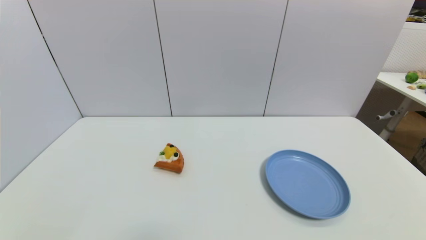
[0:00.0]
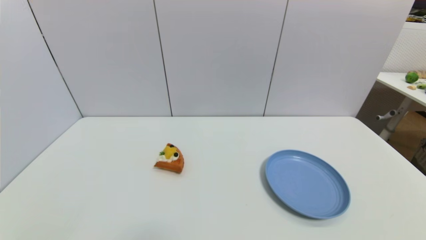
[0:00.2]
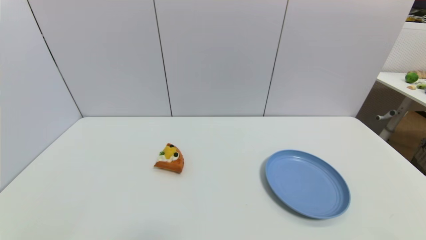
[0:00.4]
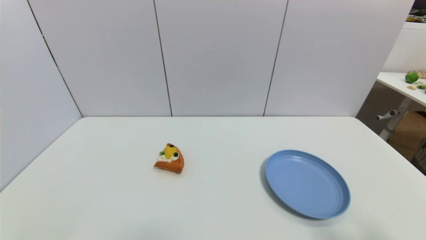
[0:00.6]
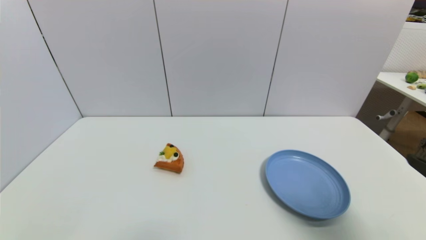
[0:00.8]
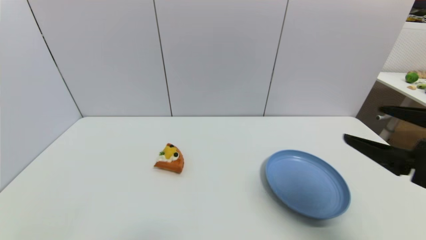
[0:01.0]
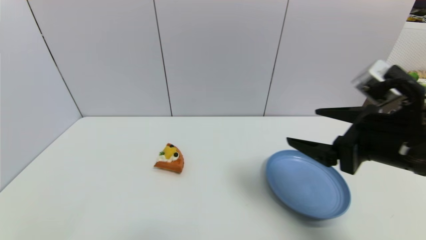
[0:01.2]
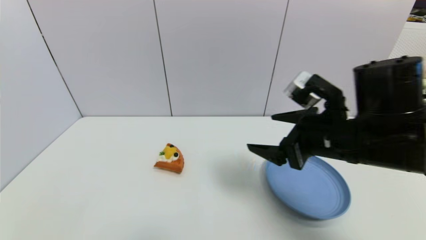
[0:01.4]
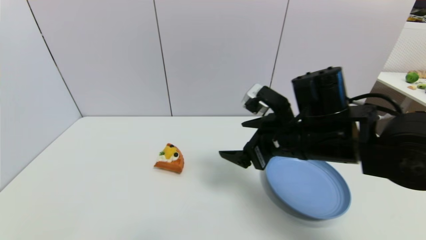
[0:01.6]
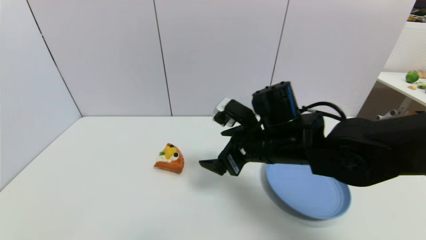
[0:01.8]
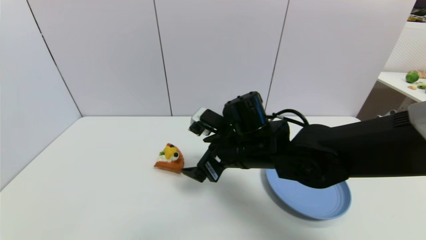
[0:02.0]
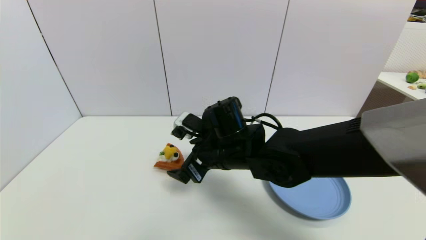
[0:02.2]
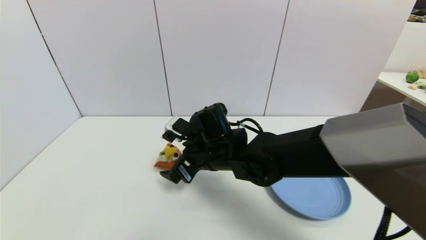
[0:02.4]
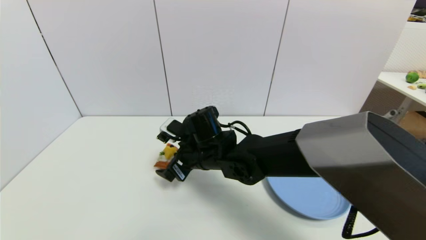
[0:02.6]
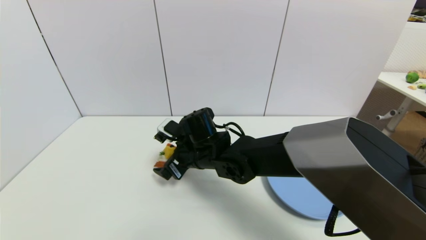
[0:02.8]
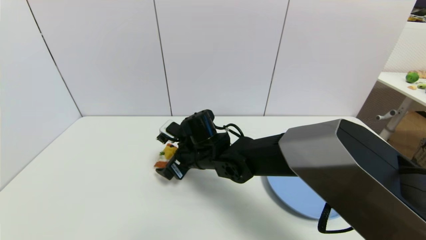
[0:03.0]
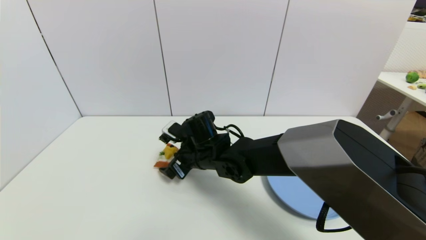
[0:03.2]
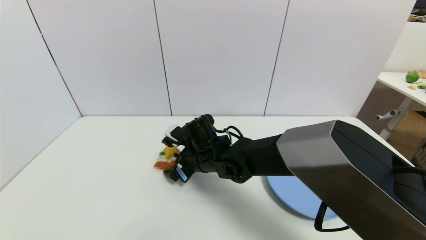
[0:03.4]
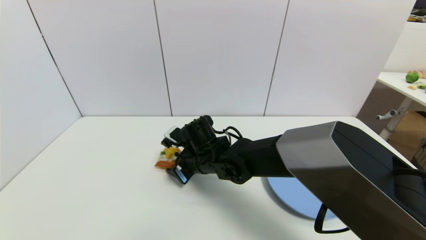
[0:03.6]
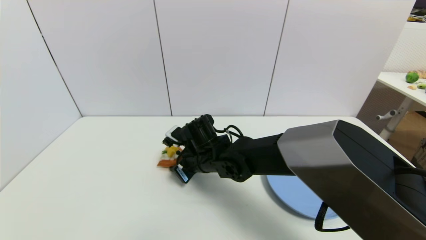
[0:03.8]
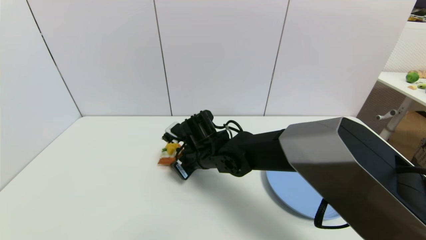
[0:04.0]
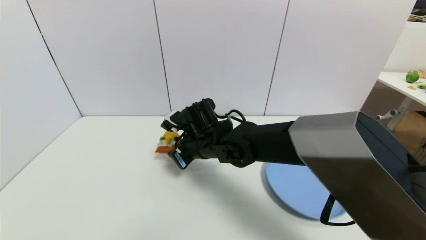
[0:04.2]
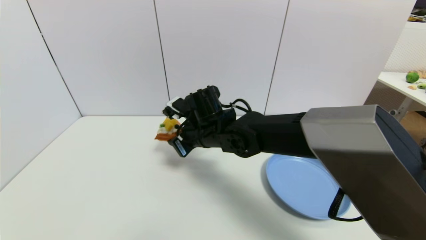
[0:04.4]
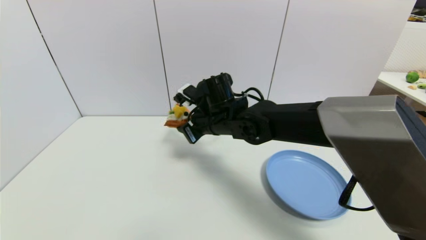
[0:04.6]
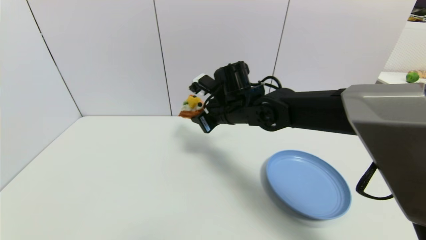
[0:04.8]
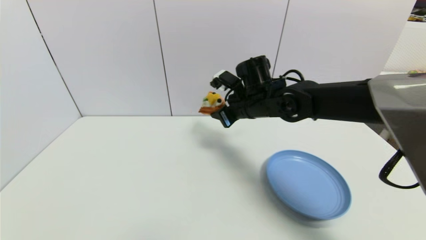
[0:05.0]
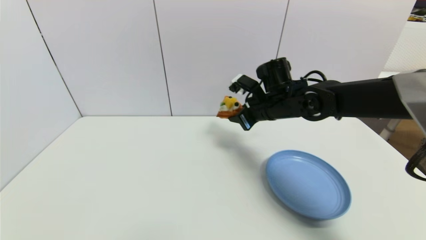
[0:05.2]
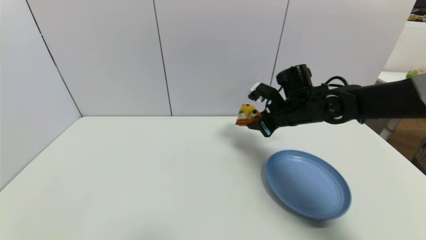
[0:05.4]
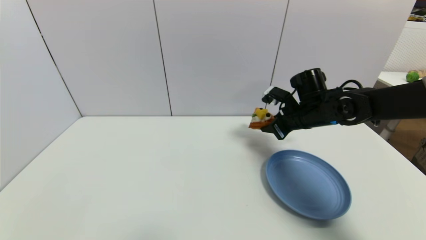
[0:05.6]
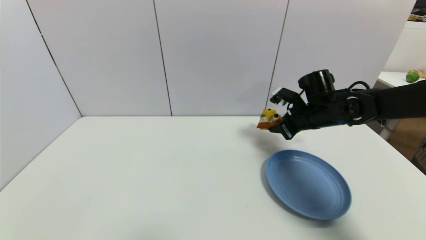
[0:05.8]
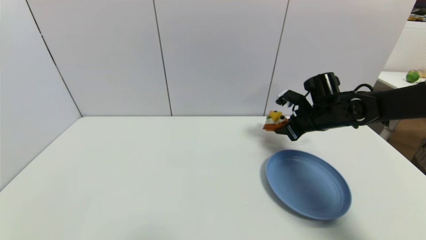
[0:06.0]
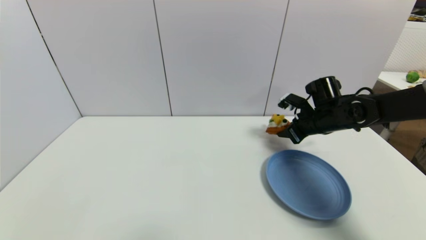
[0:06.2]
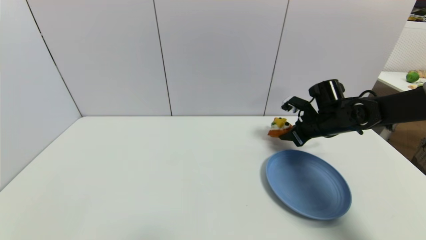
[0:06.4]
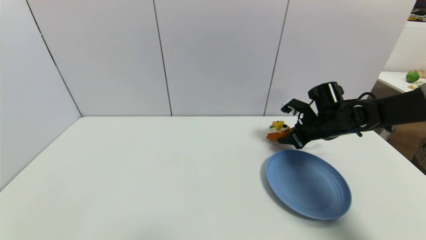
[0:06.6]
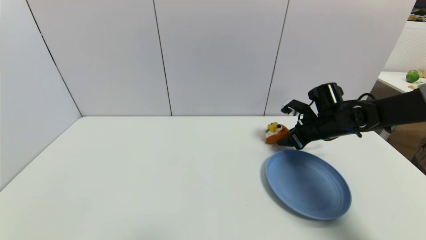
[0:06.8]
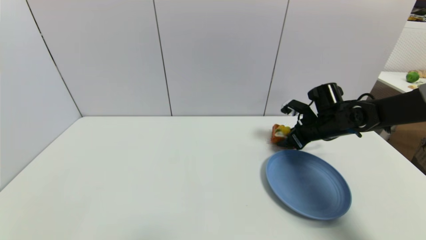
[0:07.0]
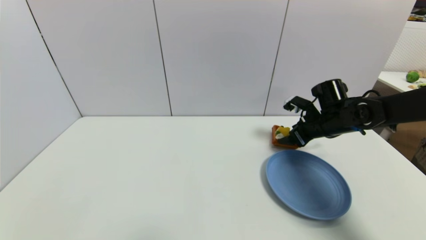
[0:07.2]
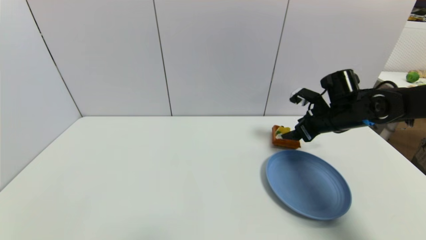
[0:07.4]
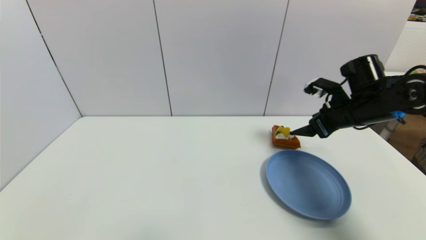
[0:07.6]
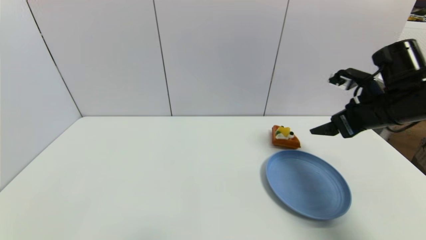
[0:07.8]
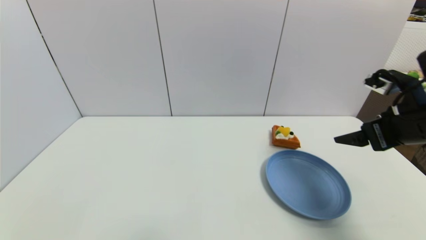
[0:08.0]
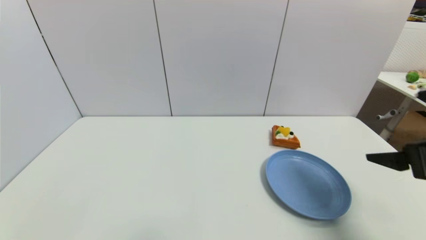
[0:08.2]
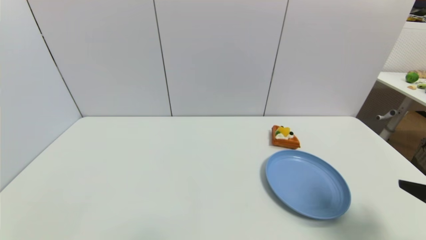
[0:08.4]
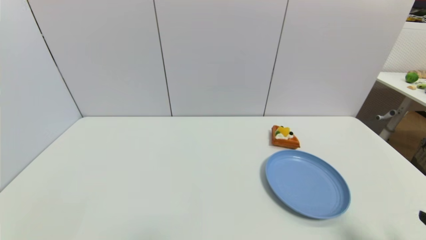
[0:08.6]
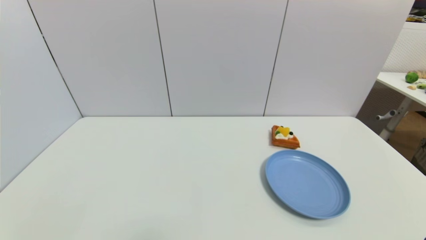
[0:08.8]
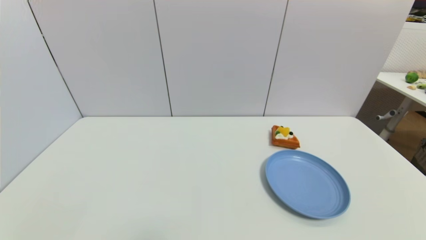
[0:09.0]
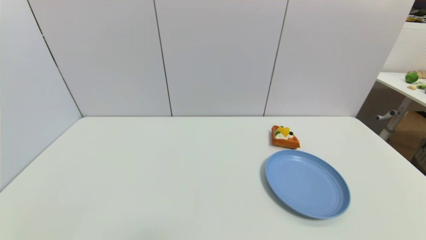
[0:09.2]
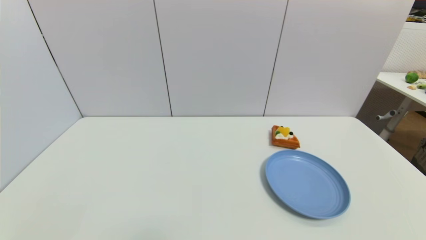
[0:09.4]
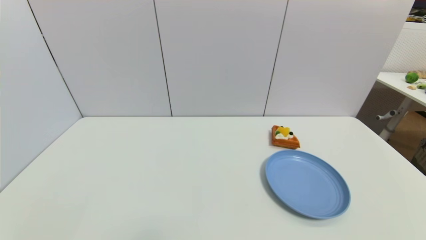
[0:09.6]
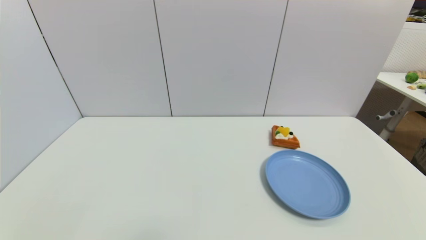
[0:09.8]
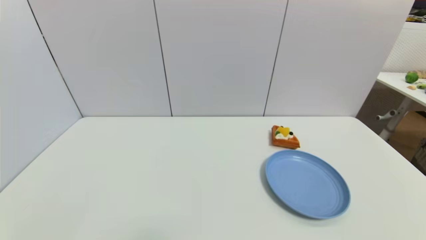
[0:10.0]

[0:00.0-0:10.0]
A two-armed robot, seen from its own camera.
Step, 0:00.0 to 0:03.8: Grasp the pizza with right gripper.
Step, 0:04.0 to 0:07.0: Place the pizza on the table with right gripper.
0:00.0 to 0:01.4: The right gripper heads forward, to the left and upward, covering about 35 cm.
0:01.4 to 0:02.8: The right gripper goes approximately 25 cm to the left, downward and forward.
0:02.8 to 0:04.2: The right gripper closes its fingers.
0:04.2 to 0:05.8: The right gripper goes approximately 25 cm to the right.
0:05.8 to 0:07.2: The right gripper opens up.
0:07.2 to 0:08.6: The right gripper shifts roughly 35 cm backward.

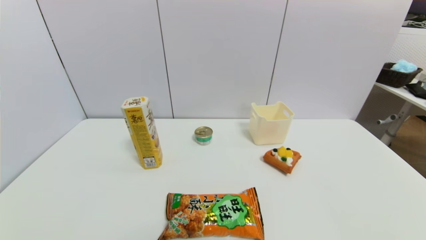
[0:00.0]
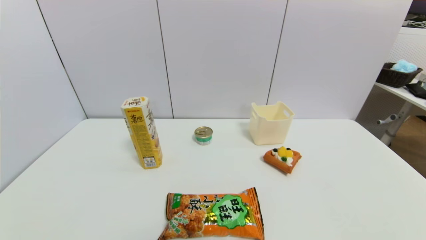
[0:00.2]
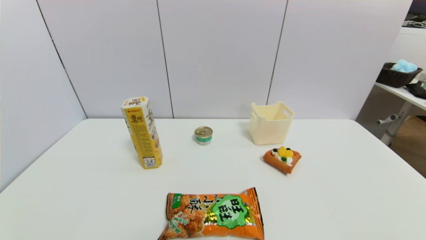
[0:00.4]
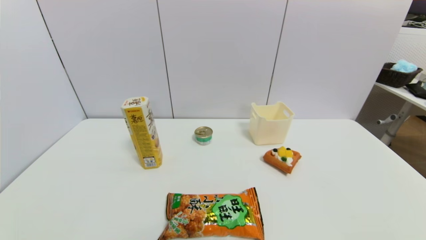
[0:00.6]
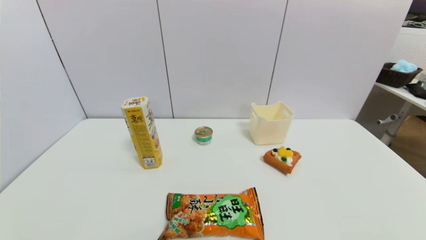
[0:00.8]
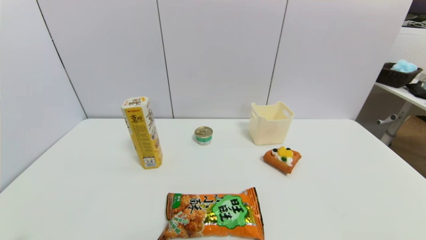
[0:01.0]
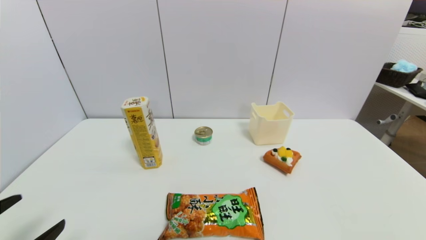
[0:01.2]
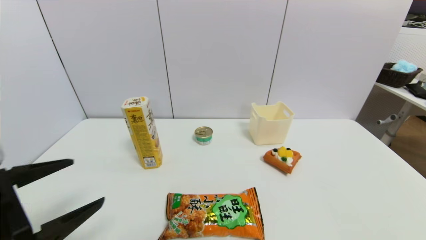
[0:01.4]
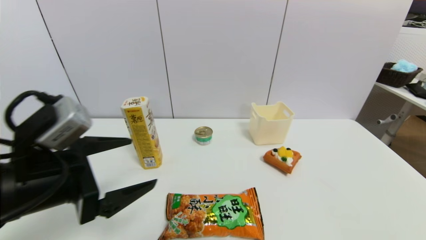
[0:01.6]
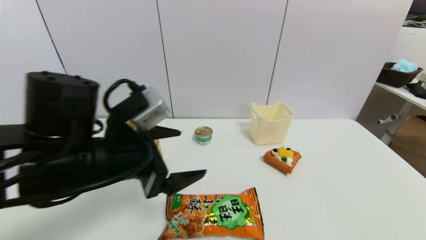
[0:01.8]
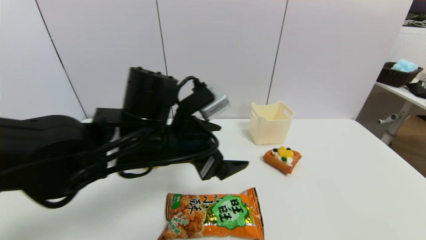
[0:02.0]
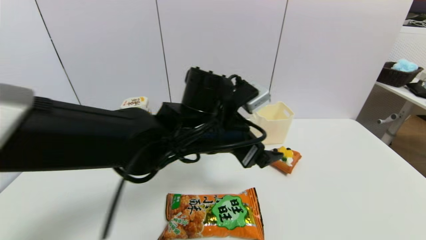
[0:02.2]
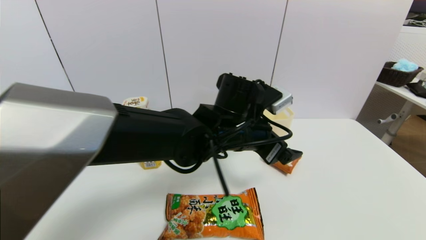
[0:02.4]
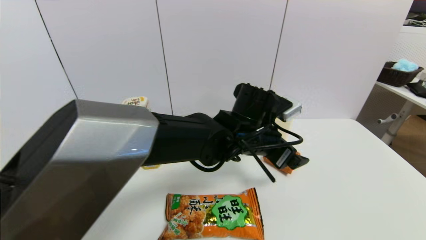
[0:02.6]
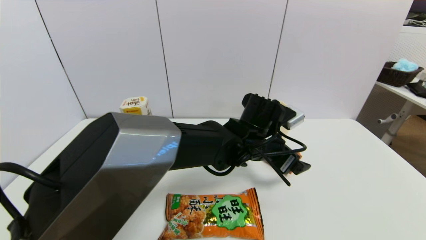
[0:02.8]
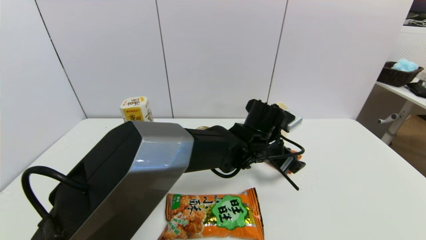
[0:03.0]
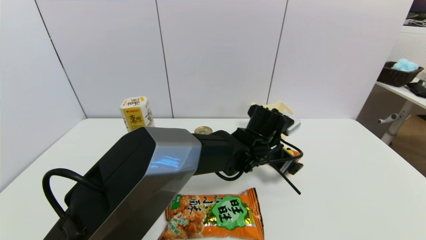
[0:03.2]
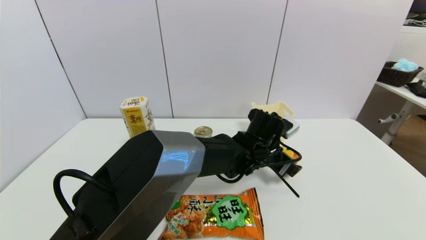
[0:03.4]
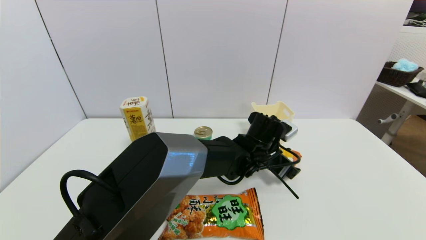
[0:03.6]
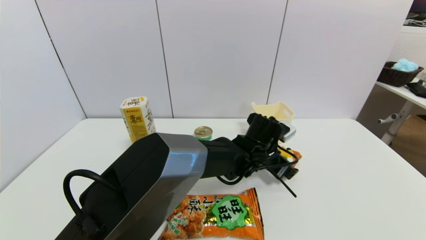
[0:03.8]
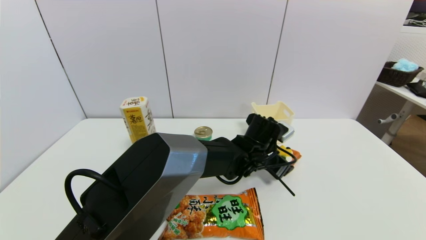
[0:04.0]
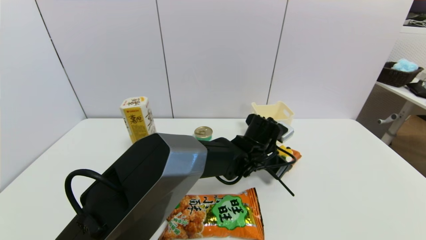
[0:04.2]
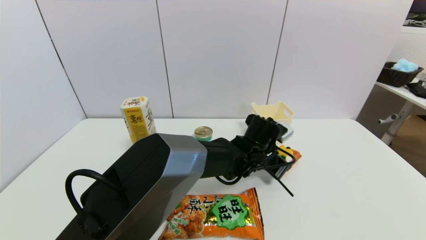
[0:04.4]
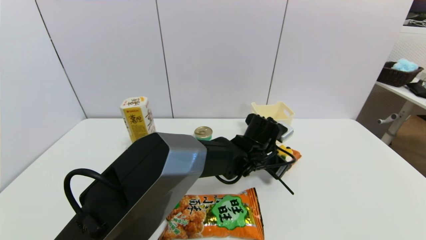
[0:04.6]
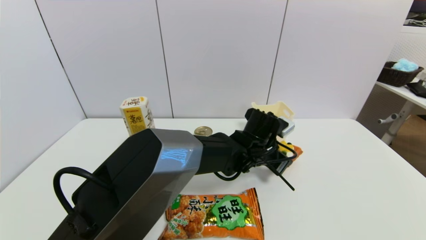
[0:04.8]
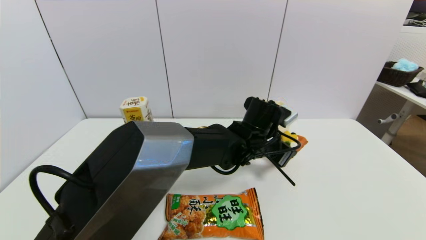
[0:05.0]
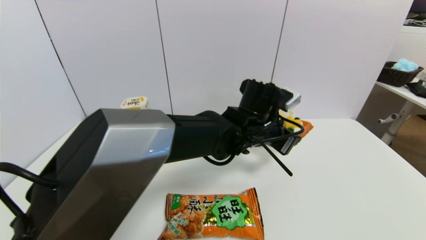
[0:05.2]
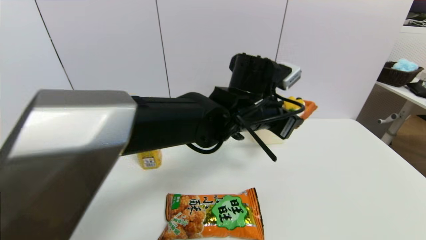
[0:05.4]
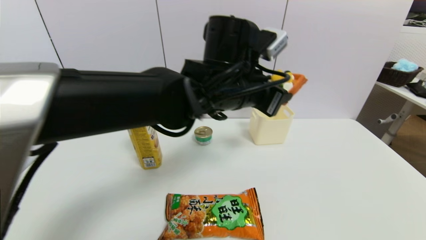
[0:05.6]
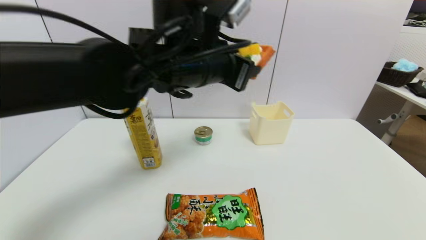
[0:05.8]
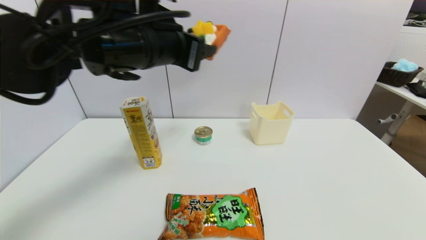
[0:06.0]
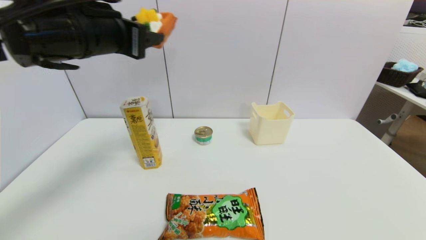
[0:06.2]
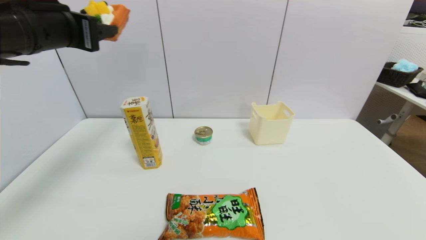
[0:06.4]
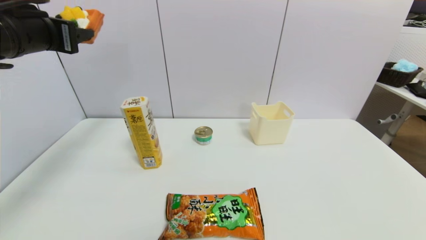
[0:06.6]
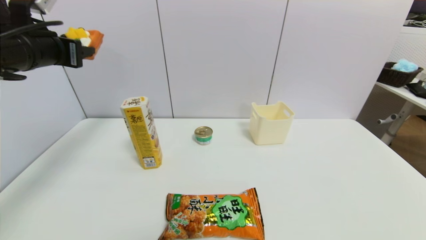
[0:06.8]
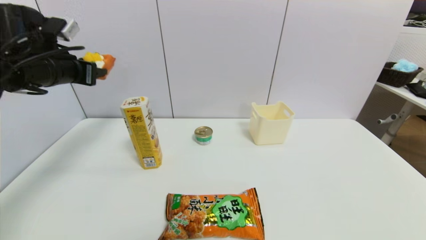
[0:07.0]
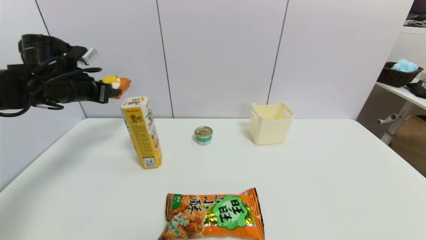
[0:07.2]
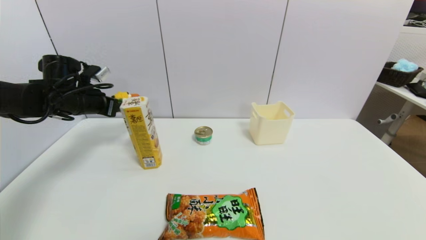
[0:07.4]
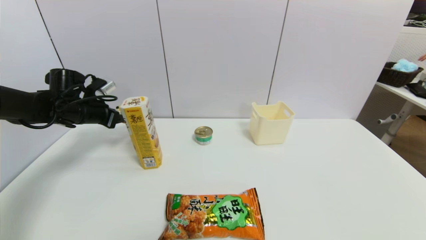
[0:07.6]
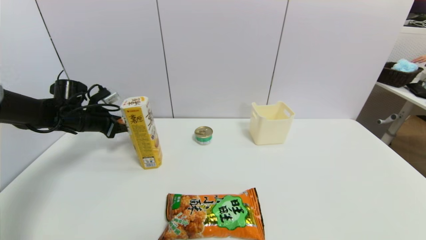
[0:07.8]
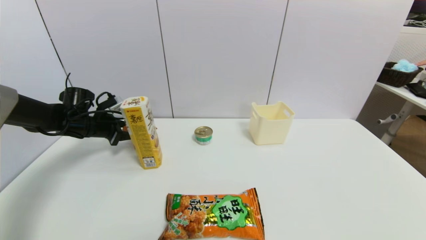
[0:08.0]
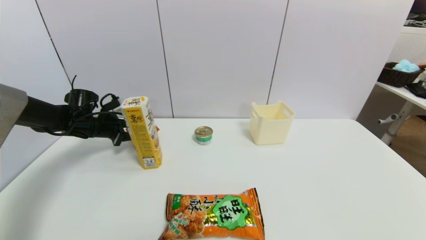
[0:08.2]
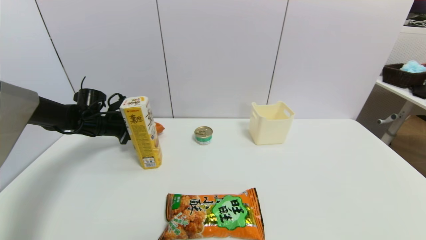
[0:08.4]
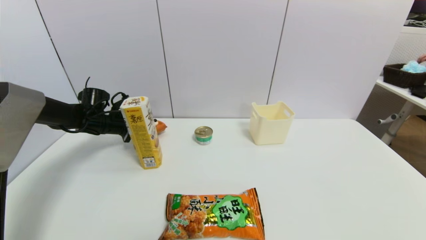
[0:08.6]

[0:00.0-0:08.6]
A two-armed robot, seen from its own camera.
Step, 0:01.2 to 0:04.6: Grasp the pizza with left gripper.
0:00.0 to 0:01.4: The left gripper moves upward and forward, about 20 cm.
0:01.4 to 0:02.8: The left gripper shifts roughly 40 cm to the right and forward.
0:02.8 to 0:04.4: The left gripper heads downward, covering about 5 cm, and closes its fingers.
0:04.4 to 0:05.8: The left gripper moves upward and to the left, about 30 cm.
0:05.8 to 0:07.2: The left gripper heads to the left, covering roughly 25 cm.
0:07.2 to 0:08.6: The left gripper heads downward and forward, covering approximately 15 cm.
